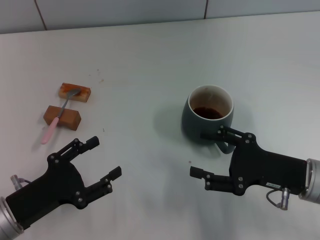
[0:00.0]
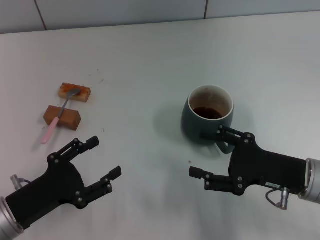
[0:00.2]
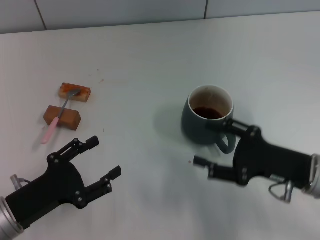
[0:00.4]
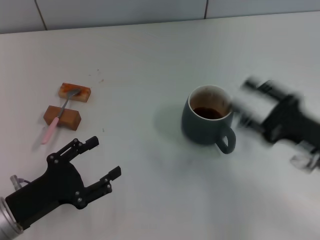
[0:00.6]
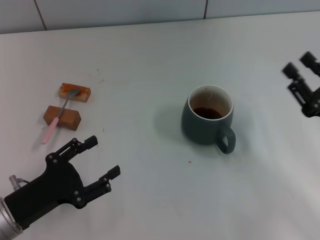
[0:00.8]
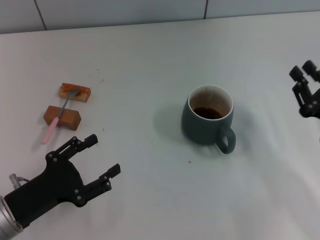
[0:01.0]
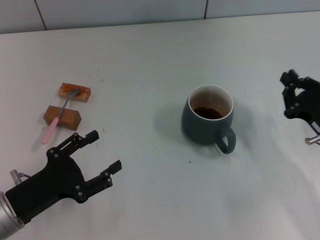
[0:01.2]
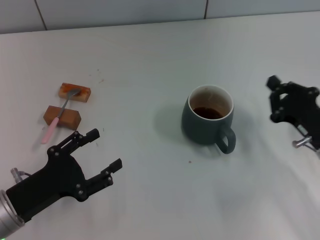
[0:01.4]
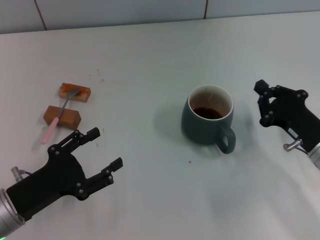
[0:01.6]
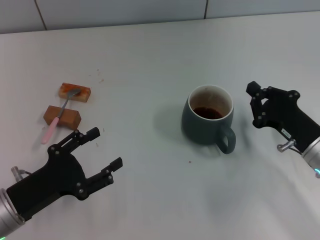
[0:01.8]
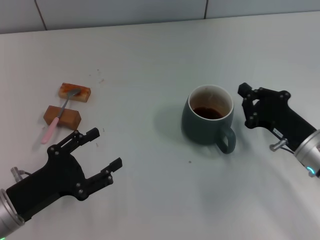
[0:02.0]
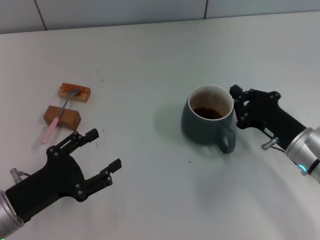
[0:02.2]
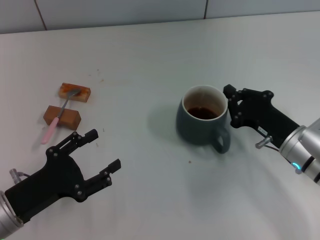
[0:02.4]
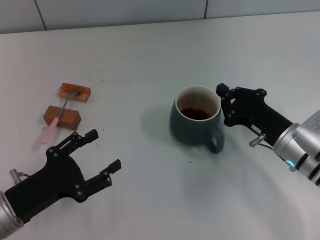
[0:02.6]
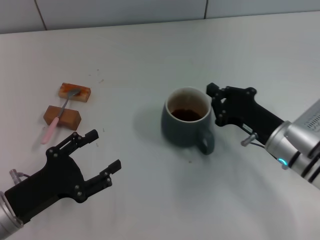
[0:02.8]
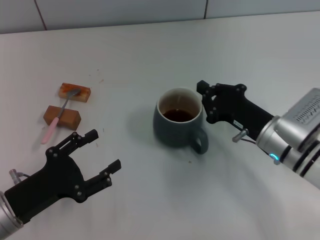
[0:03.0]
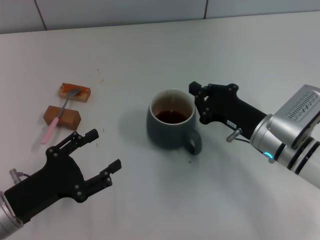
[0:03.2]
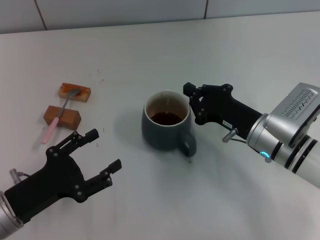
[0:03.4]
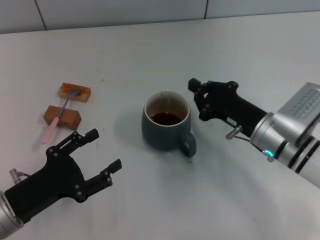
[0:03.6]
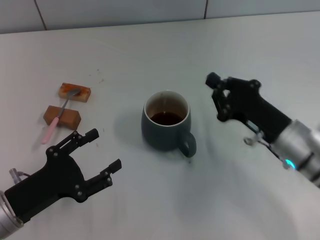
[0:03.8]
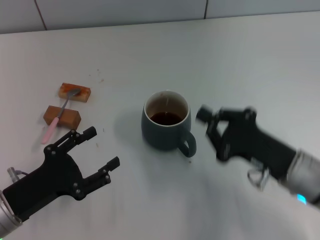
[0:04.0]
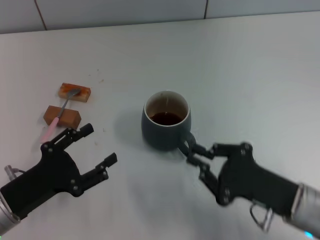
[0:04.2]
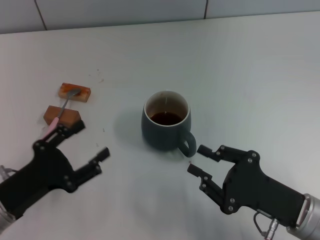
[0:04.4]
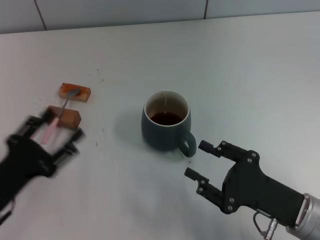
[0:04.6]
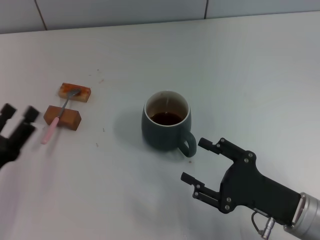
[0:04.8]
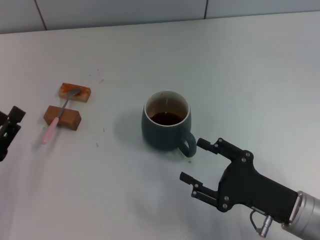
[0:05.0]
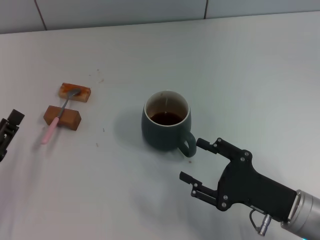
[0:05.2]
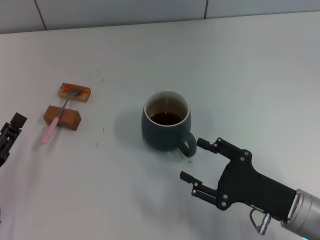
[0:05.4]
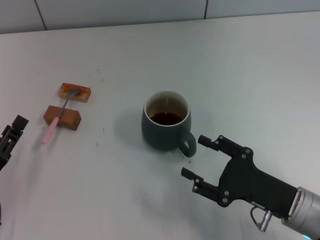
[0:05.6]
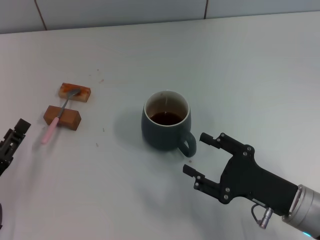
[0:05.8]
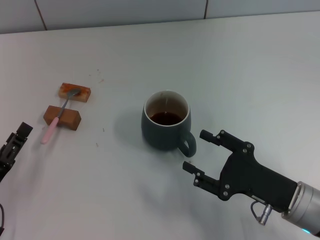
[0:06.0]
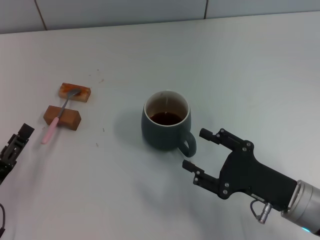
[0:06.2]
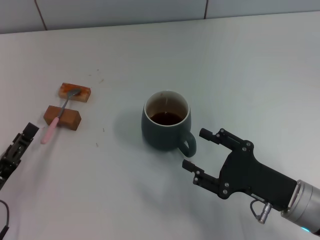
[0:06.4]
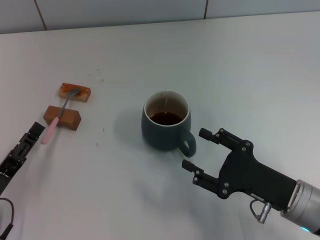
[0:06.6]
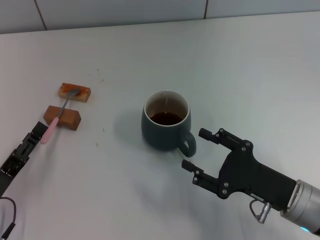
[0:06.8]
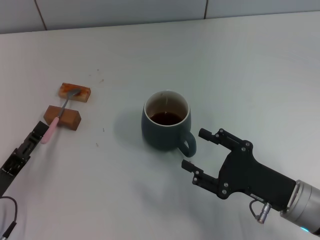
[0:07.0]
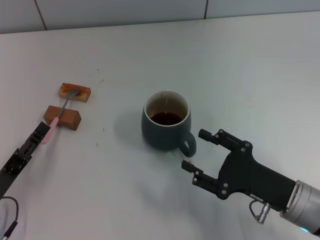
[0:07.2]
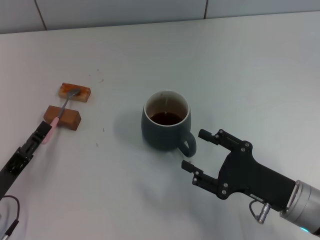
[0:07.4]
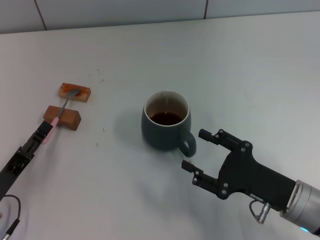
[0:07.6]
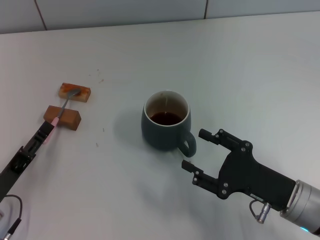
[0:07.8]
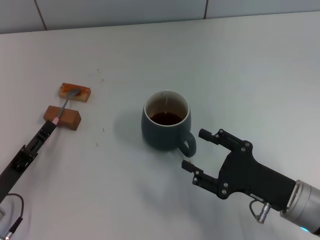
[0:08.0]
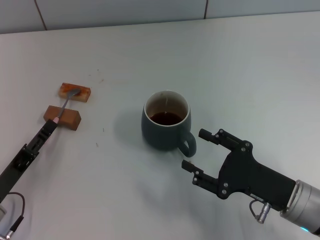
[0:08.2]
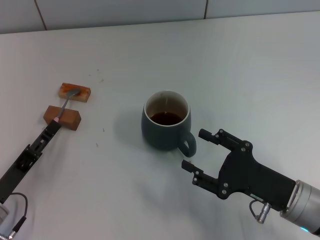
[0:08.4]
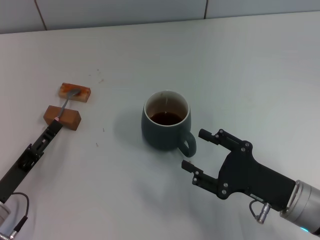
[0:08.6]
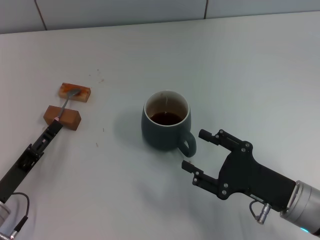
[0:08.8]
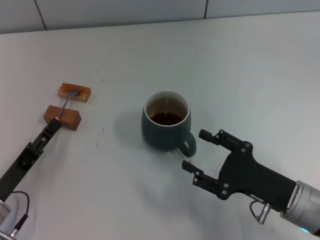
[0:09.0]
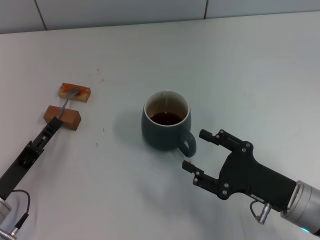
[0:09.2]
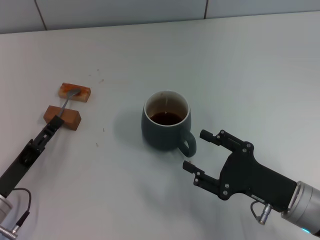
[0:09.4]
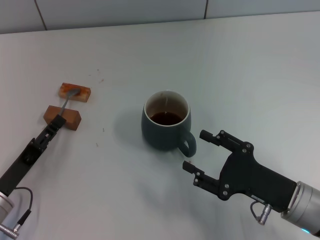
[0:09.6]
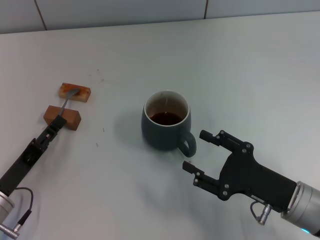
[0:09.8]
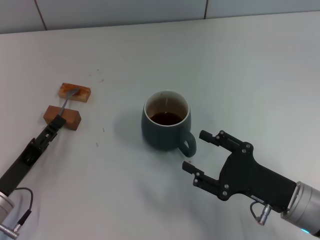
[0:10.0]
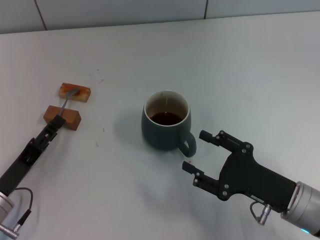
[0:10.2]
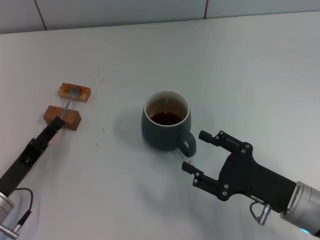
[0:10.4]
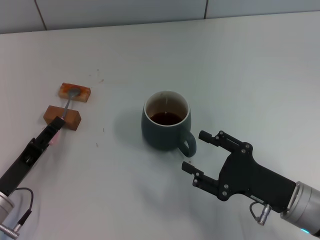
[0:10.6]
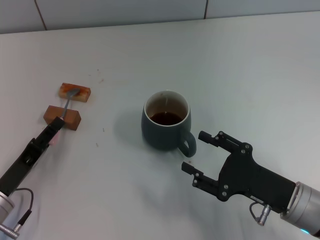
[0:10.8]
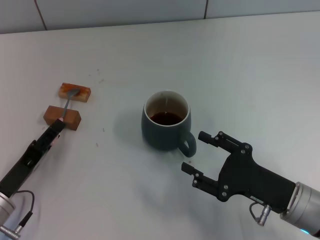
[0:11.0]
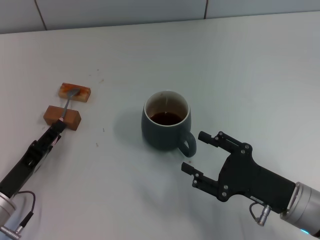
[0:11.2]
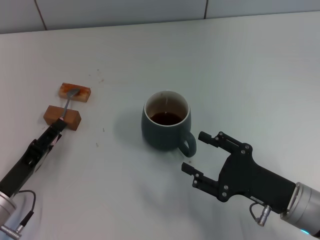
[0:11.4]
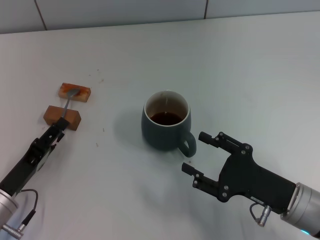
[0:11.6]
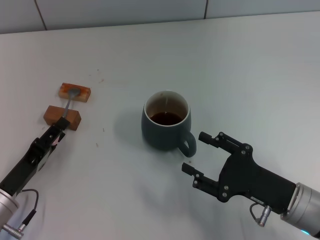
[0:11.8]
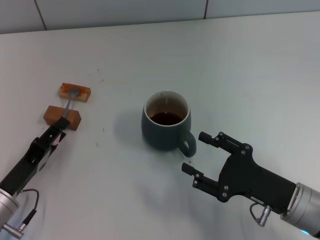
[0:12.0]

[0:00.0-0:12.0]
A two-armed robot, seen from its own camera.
Task of the whole recording: Move the grey cup to the center, lift the pink spoon, stir it three times in the cup, and put the spoon into the cup.
Step, 0:00.0 to 0:03.8: Move the cup with coffee to the center of view with the right gripper.
0:00.0 to 0:01.6: The right gripper closes.
0:01.6 to 0:03.0: The right gripper heads to the left, covering some 5 cm.
0:03.0 to 0:04.4: The right gripper moves backward, about 10 cm.
0:04.4 to 0:06.0: The right gripper opens its fingers.
0:06.0 to 0:07.6: The grippers make only small movements.
0:07.6 to 0:09.0: The two grippers keep their place.
0:09.0 to 0:10.4: Both grippers stay about where they are.
0:10.4 to 0:12.0: The grippers stay close to where they were, moving slightly.

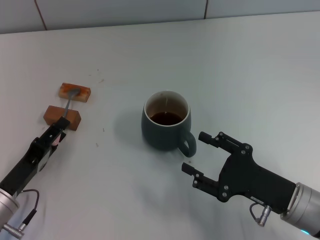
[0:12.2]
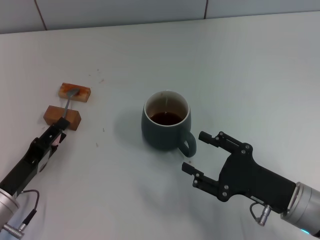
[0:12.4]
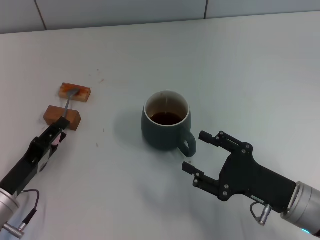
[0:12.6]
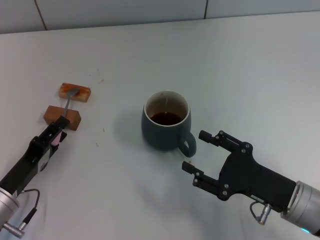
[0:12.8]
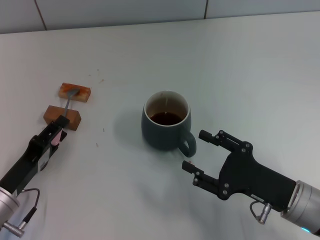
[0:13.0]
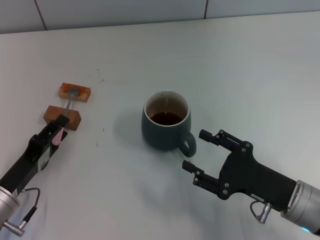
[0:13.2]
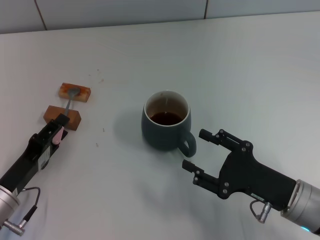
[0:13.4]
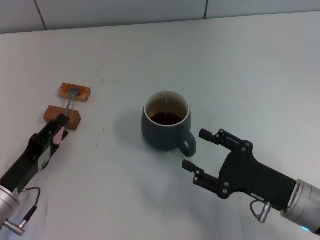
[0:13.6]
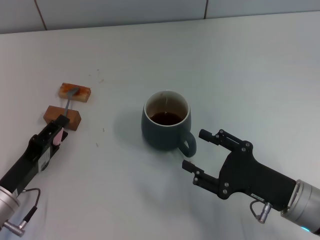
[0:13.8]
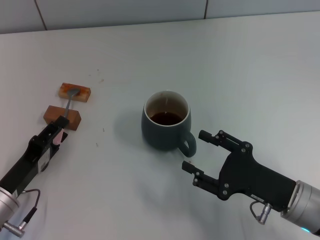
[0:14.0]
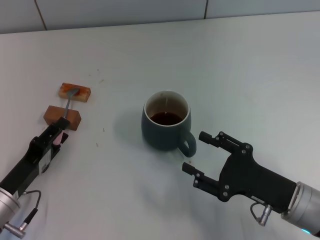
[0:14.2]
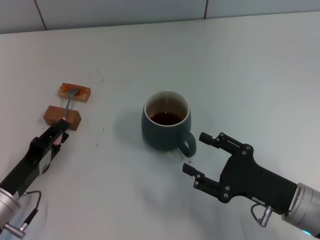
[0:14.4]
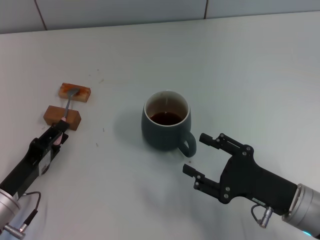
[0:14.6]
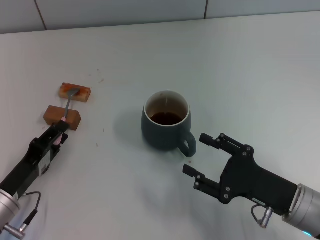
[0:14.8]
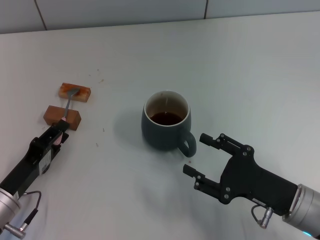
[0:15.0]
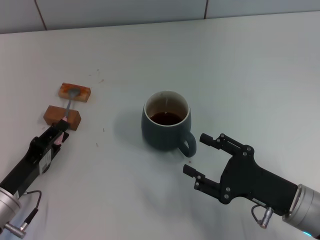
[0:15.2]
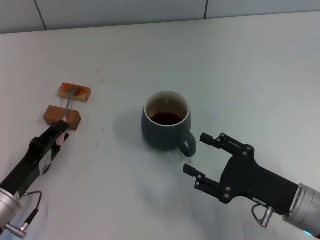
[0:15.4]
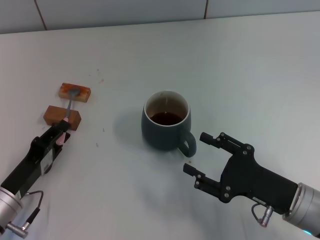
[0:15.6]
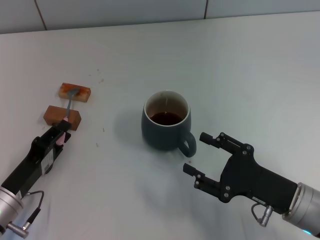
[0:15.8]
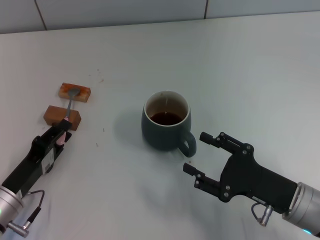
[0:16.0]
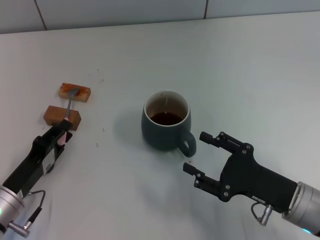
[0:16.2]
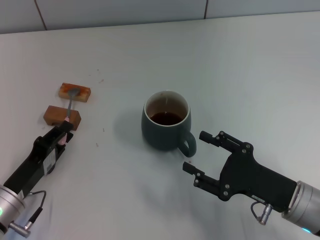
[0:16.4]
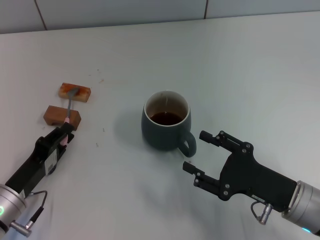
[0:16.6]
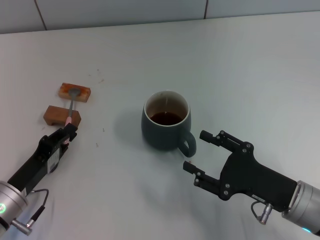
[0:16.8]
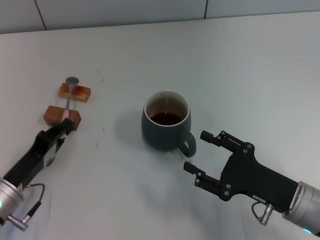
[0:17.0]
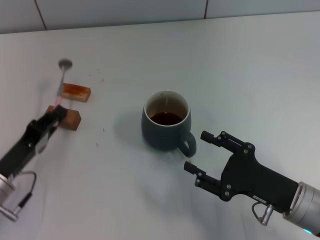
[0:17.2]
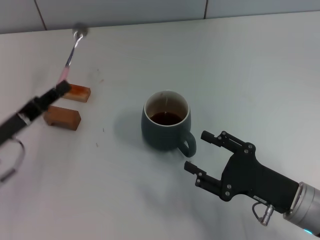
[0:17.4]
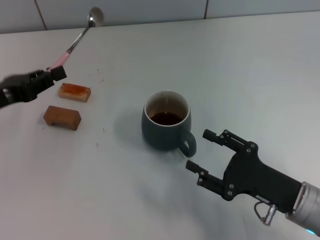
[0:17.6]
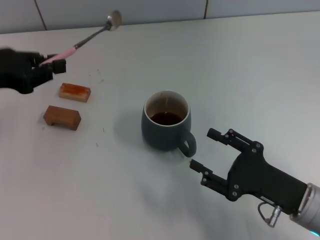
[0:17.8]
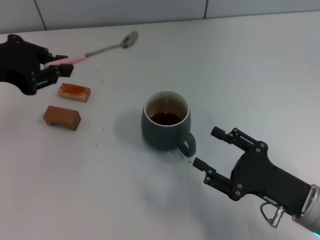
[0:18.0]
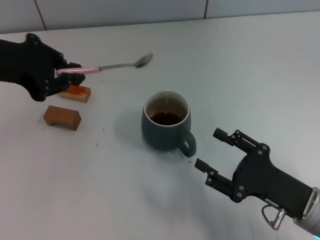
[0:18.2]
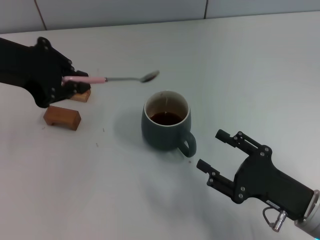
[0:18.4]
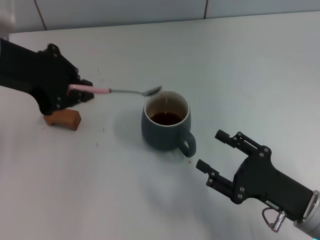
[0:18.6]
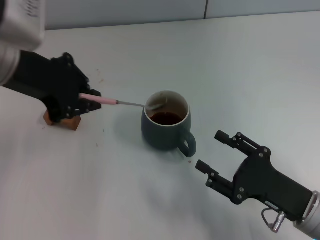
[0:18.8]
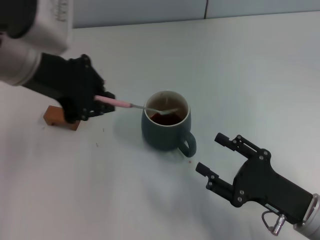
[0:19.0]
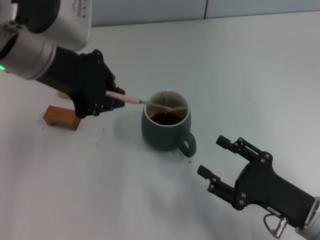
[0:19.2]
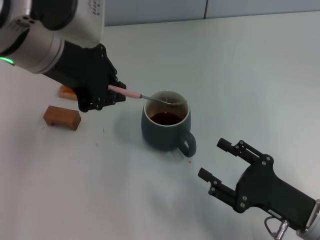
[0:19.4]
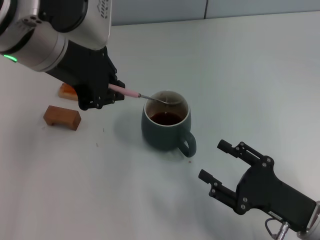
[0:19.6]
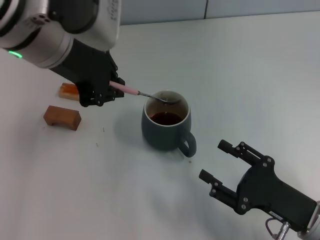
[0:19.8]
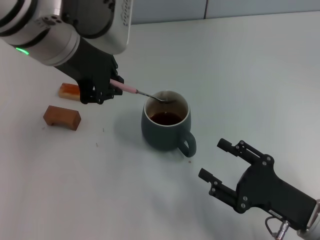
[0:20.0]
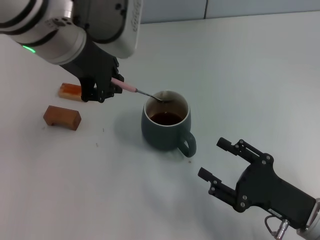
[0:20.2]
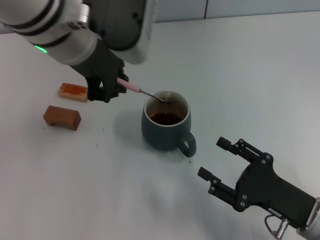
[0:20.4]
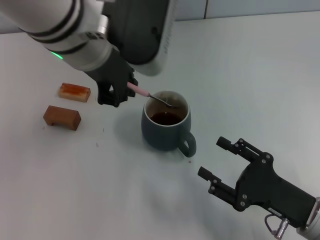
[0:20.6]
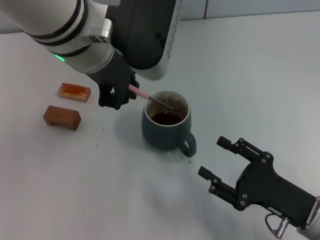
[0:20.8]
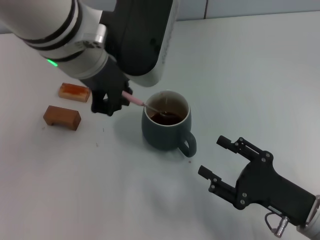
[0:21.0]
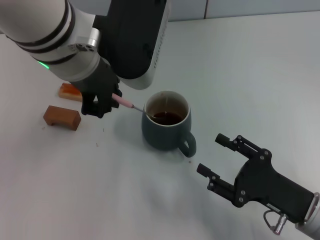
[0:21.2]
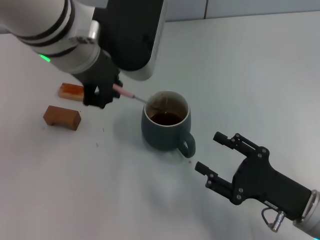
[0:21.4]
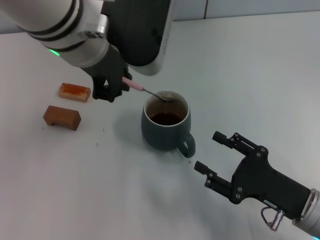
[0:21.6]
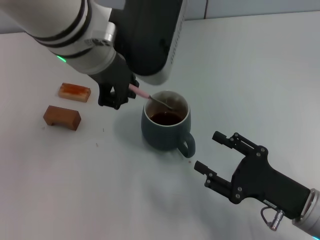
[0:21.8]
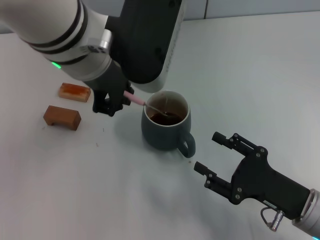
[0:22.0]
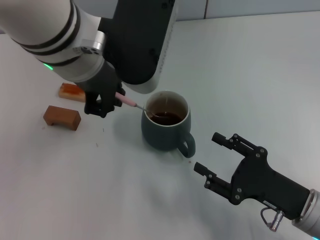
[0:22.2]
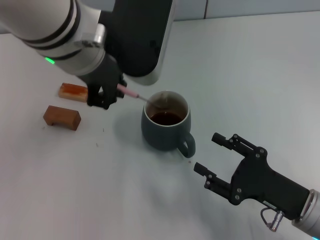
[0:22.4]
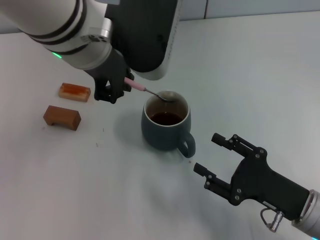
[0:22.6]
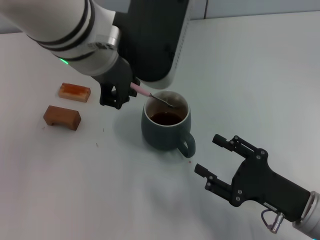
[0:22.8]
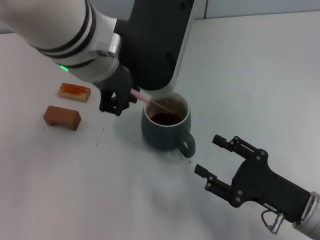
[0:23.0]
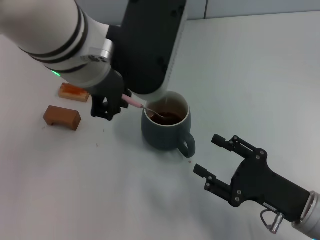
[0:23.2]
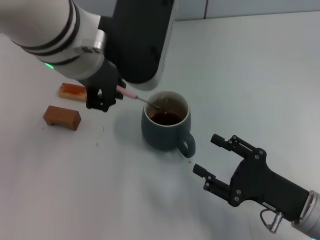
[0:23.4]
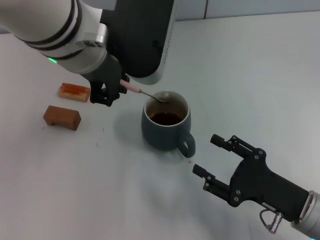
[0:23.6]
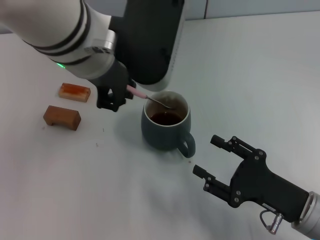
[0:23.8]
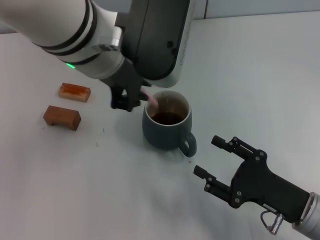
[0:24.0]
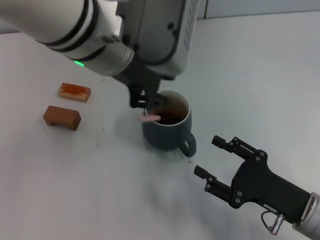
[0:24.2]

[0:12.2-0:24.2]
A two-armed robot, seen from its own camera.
Task of the whole recording: Move the grey cup to the center, lift the pink spoon, stir it three times in the cup, and put the spoon into the cup.
Step, 0:12.2 to 0:17.4: Pick up the spoon with the left gripper.
0:12.2 to 0:13.8: There are only small adjustments of the grippers.
0:13.8 to 0:16.6: The two grippers keep their place.
0:16.6 to 0:18.2: The left gripper travels upward and forward by about 30 cm.
0:18.2 to 0:19.8: The left gripper travels to the right by some 10 cm.
0:19.8 to 0:24.2: There are only small adjustments of the grippers.
